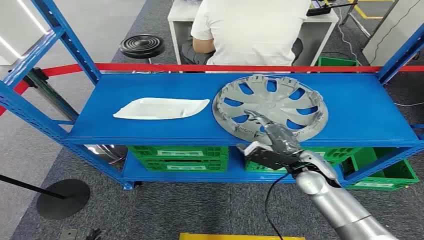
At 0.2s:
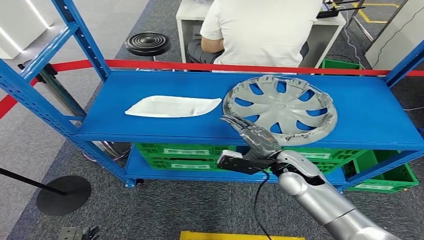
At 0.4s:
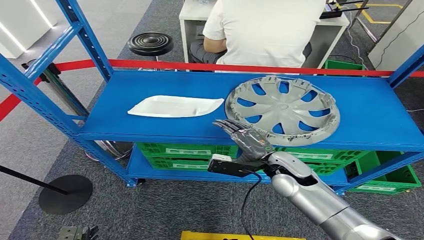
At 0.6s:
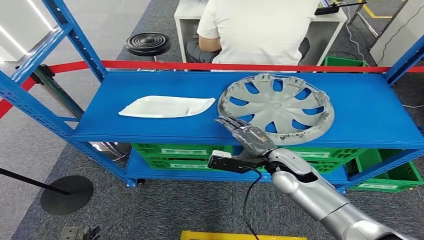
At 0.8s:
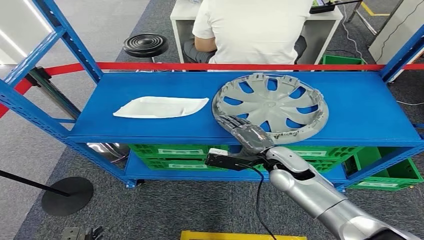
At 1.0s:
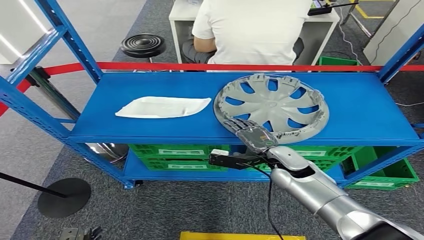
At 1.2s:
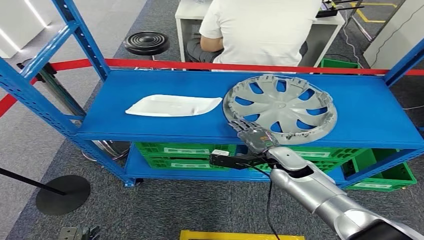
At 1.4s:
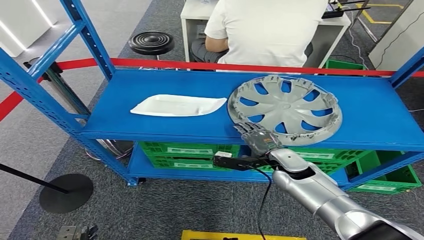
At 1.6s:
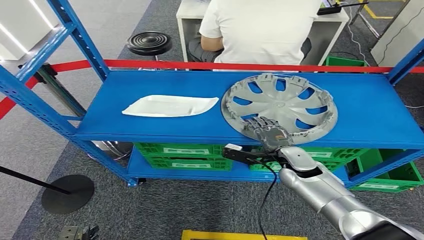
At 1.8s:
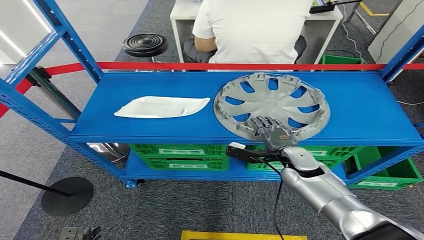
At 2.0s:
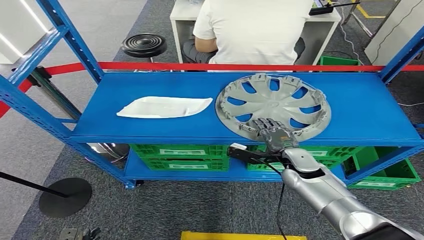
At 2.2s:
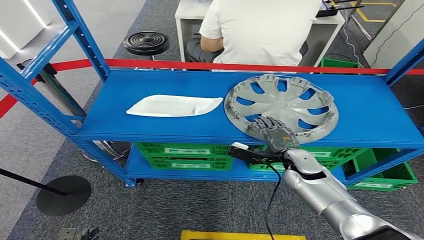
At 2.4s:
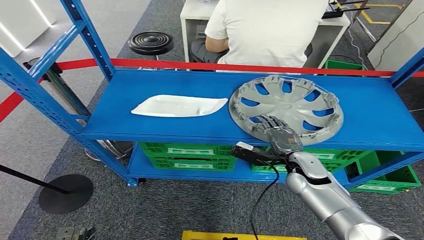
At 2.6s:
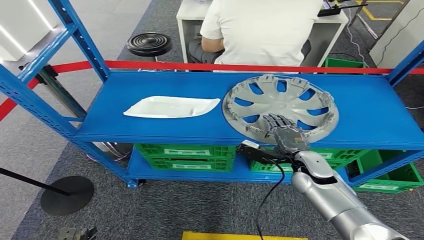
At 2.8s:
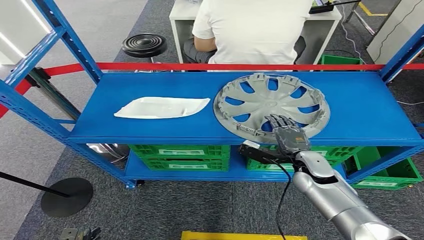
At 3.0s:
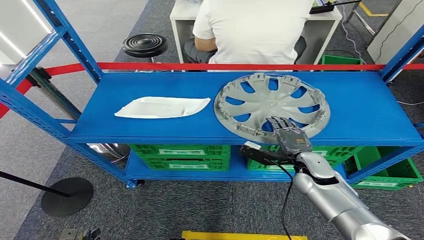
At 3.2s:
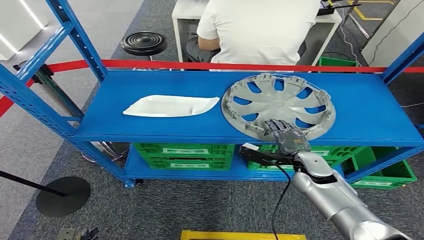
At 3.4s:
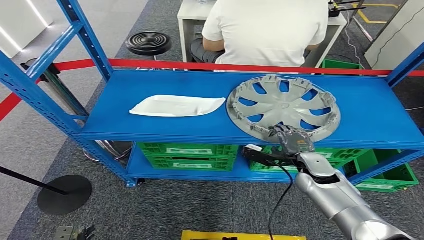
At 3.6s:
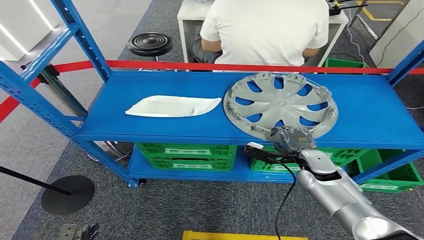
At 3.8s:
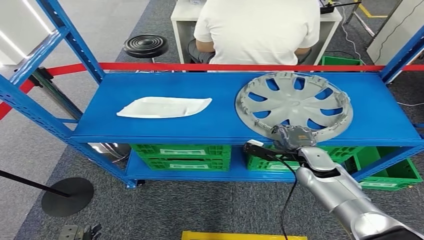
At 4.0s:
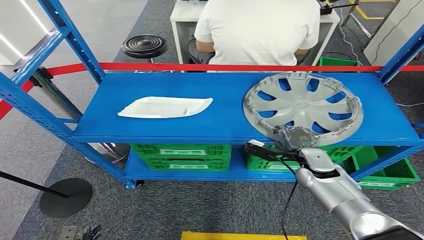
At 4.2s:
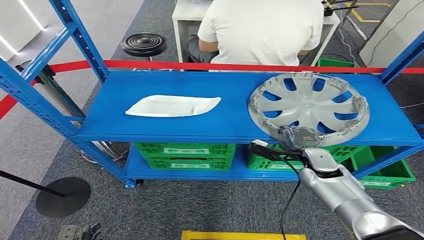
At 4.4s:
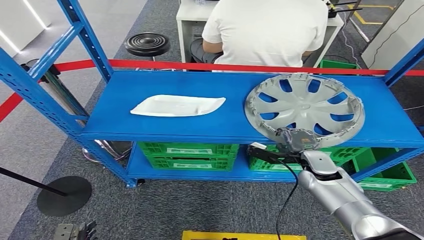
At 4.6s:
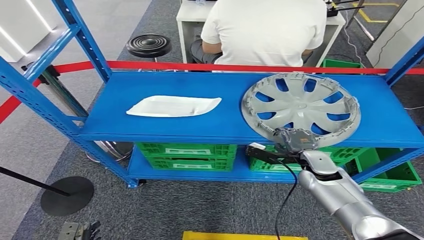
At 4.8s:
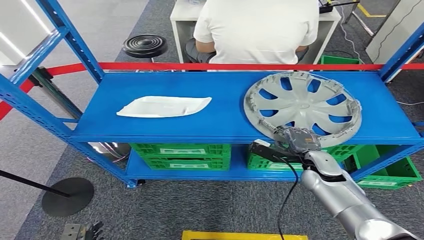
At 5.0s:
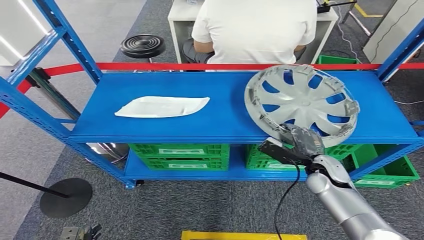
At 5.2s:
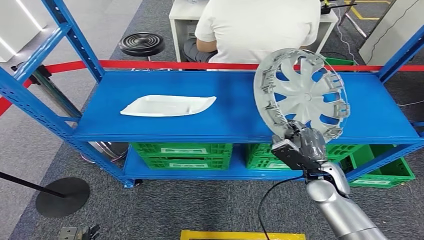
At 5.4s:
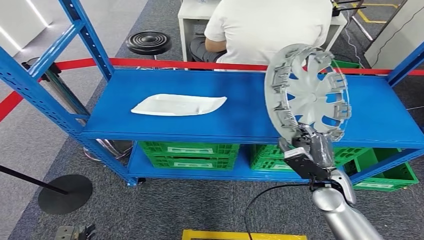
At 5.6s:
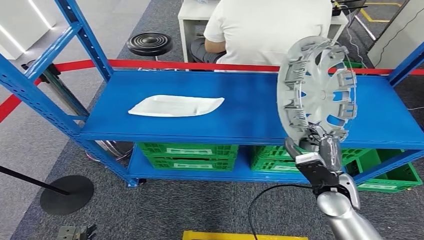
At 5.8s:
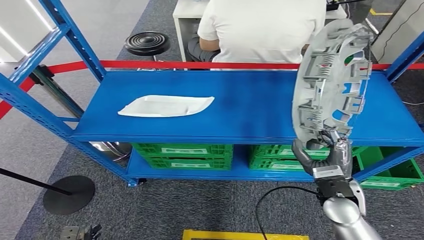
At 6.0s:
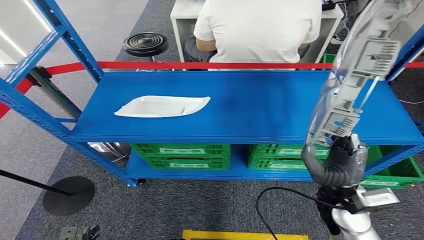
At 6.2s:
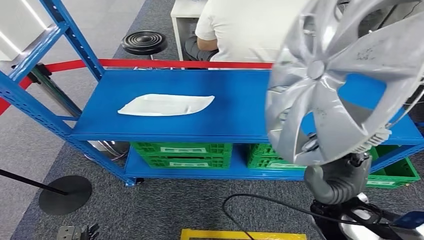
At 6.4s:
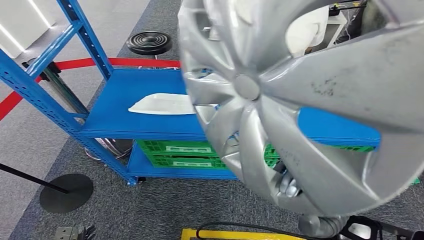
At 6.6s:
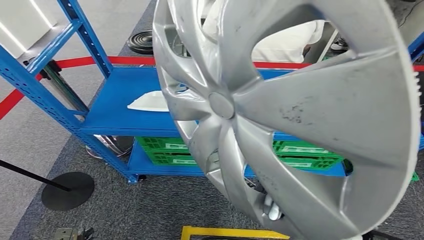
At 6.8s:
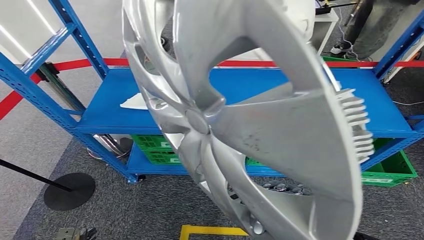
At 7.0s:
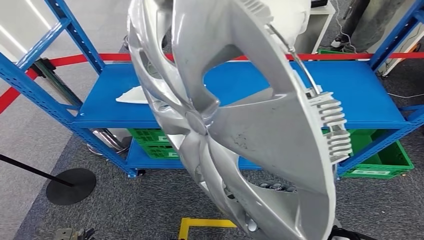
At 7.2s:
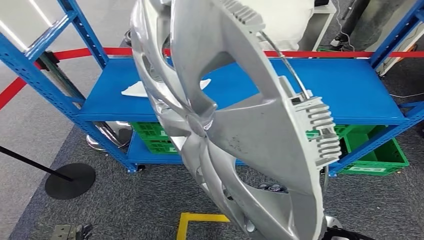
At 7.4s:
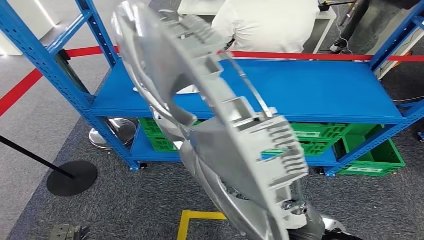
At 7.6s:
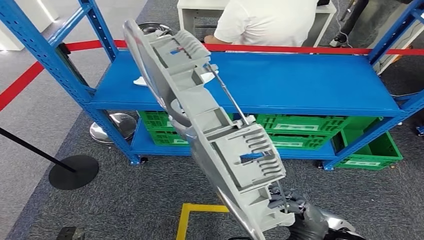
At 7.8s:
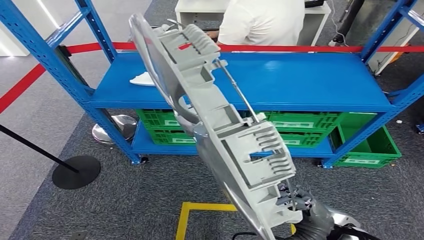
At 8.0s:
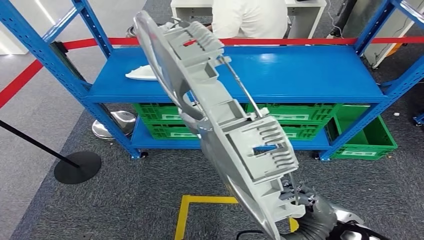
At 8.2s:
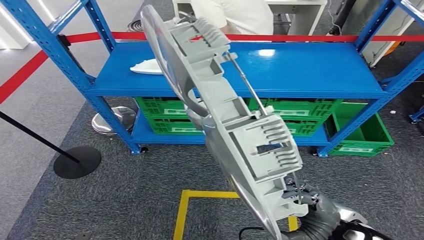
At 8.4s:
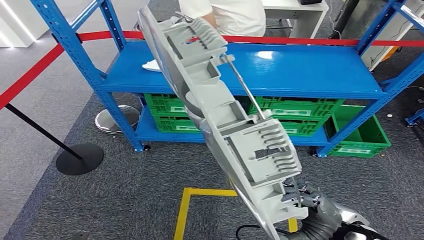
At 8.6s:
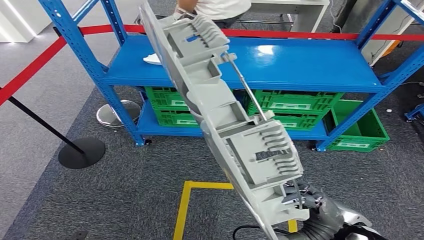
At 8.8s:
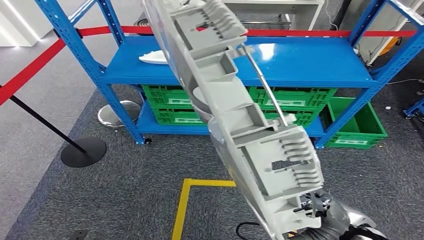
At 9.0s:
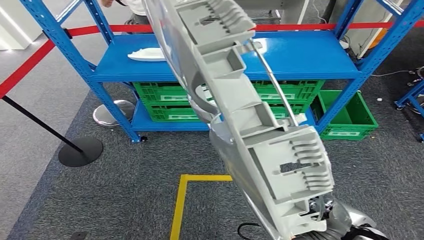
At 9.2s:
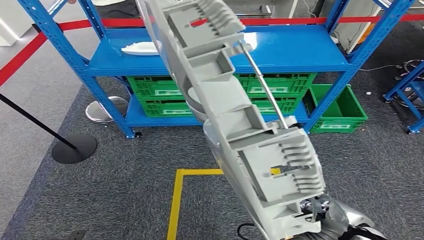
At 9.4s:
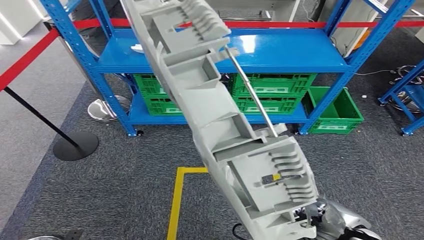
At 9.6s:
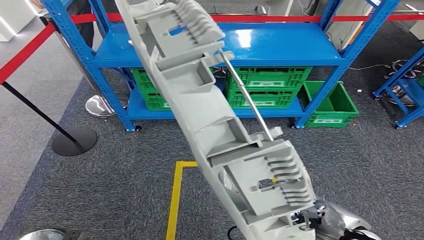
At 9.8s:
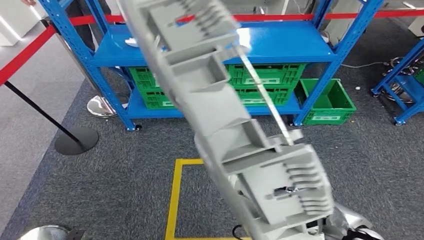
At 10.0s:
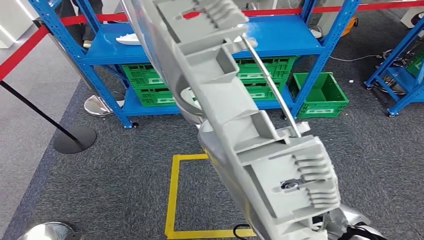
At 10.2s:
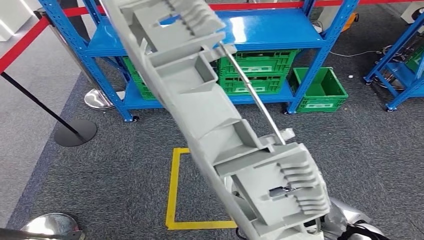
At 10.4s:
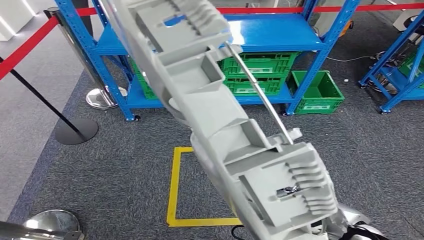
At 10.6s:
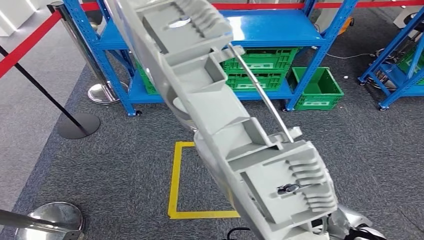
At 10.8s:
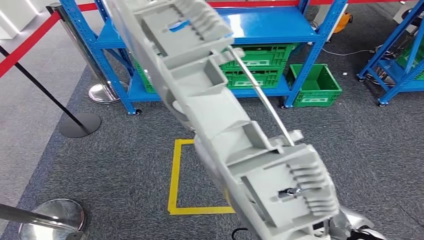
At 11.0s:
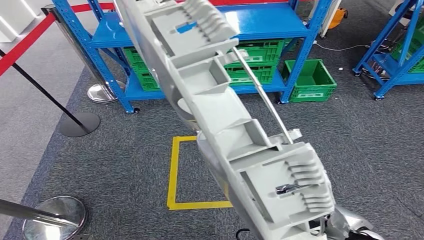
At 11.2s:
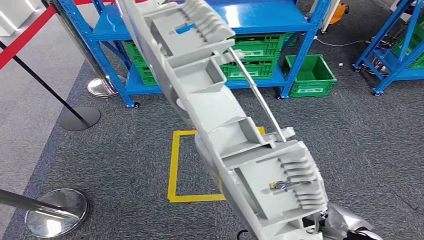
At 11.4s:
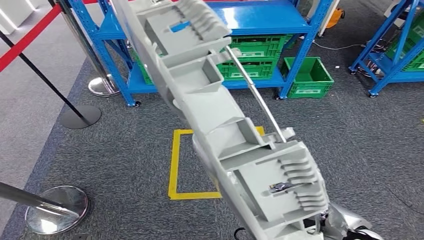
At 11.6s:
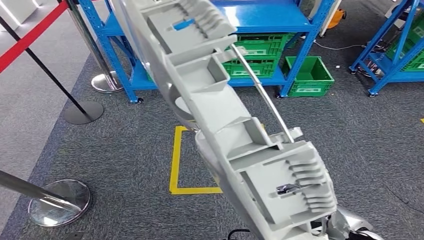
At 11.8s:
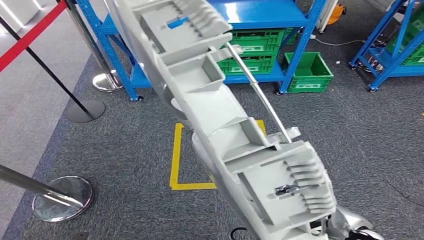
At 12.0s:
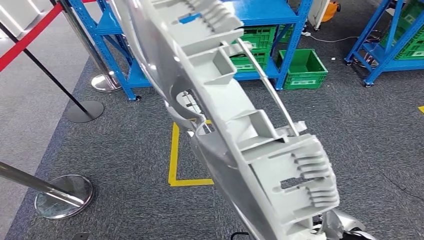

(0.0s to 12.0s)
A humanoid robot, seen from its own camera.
Step, 0.0s - 6.0s: Take small components from the rack.

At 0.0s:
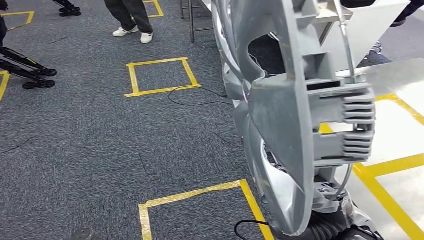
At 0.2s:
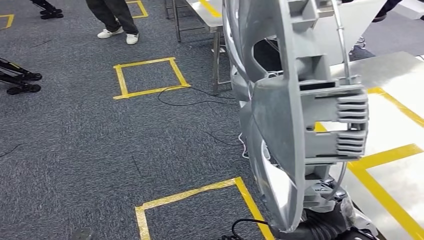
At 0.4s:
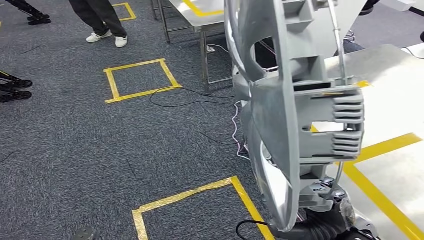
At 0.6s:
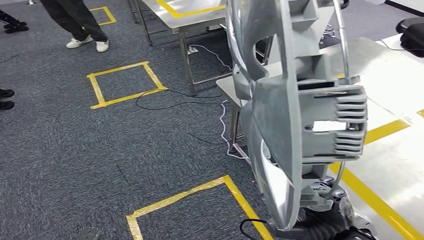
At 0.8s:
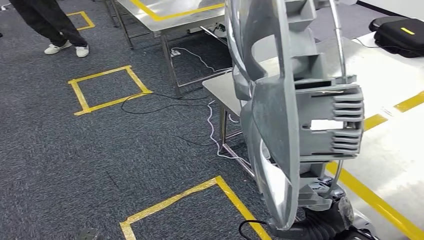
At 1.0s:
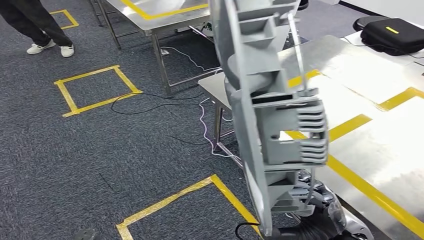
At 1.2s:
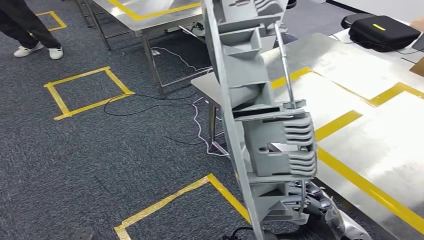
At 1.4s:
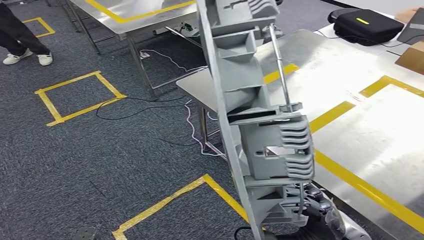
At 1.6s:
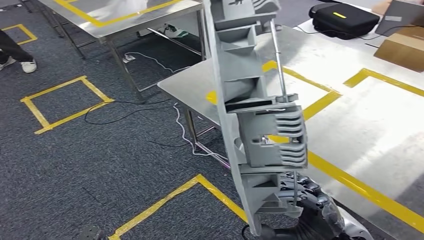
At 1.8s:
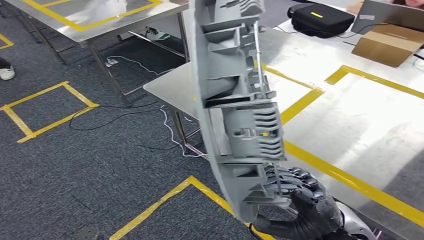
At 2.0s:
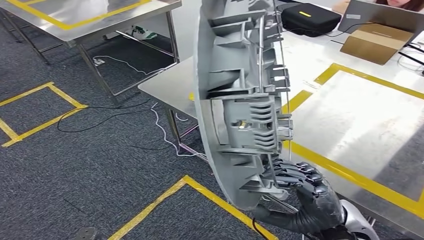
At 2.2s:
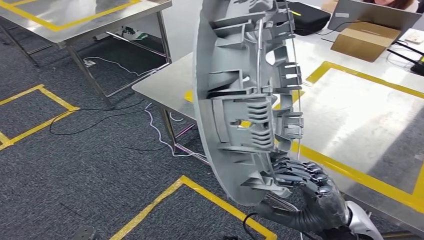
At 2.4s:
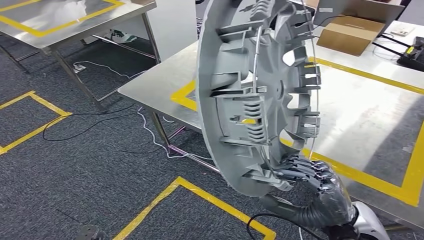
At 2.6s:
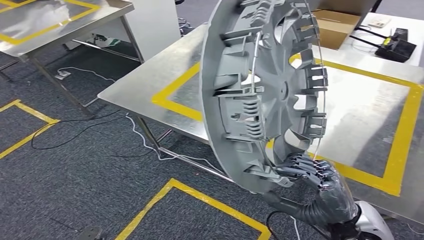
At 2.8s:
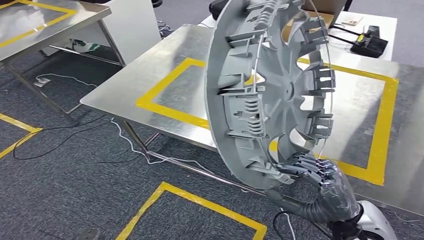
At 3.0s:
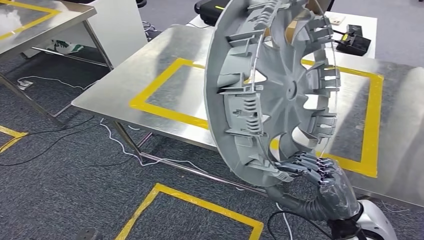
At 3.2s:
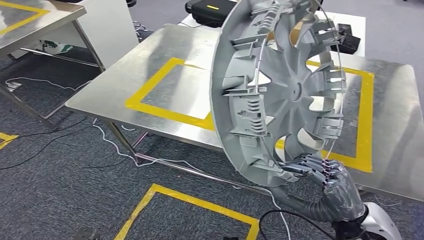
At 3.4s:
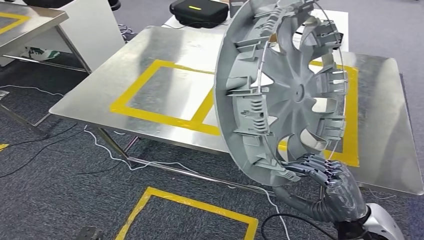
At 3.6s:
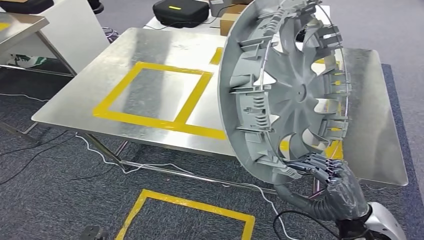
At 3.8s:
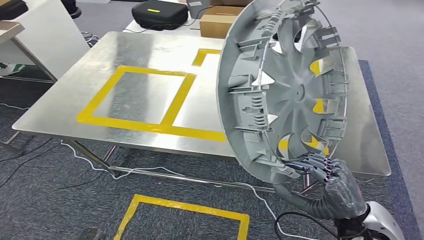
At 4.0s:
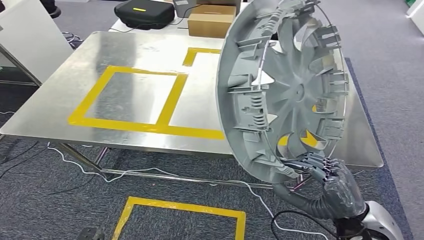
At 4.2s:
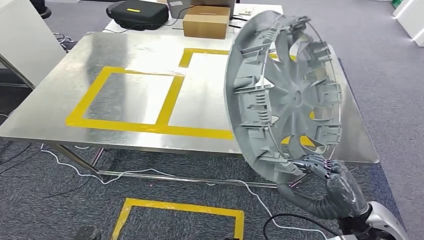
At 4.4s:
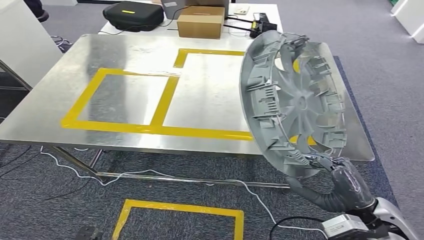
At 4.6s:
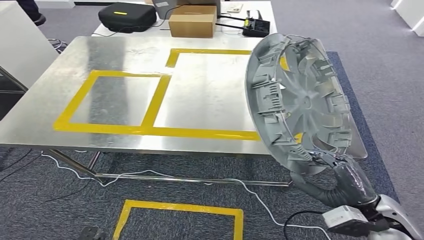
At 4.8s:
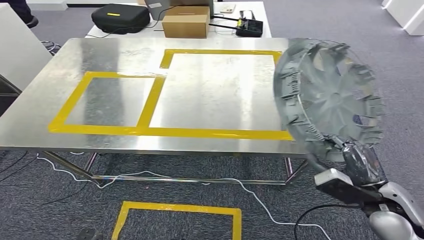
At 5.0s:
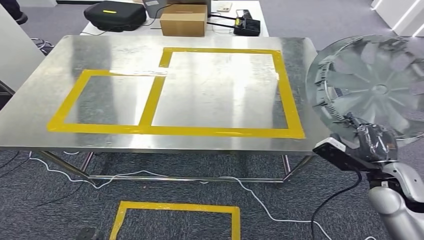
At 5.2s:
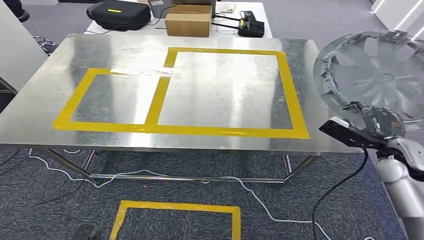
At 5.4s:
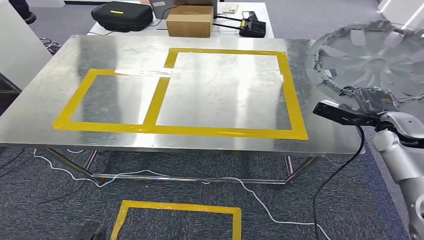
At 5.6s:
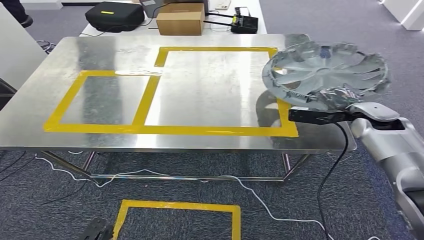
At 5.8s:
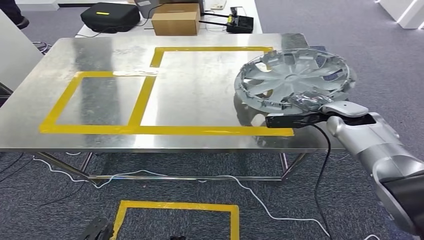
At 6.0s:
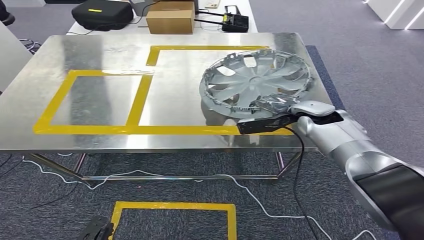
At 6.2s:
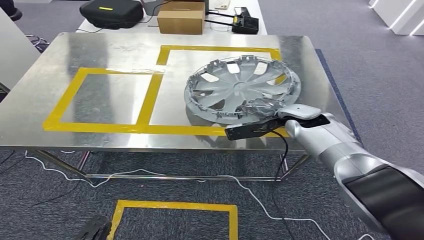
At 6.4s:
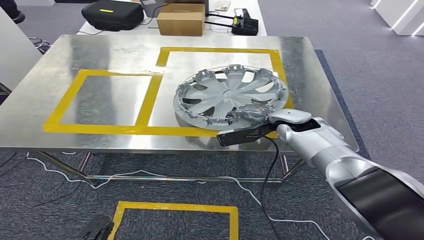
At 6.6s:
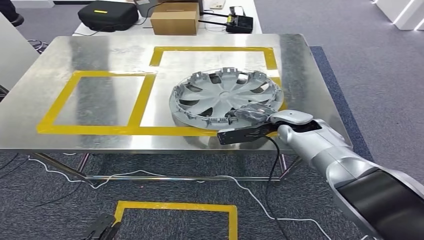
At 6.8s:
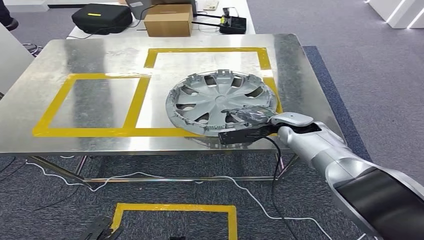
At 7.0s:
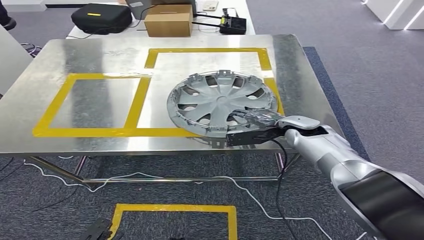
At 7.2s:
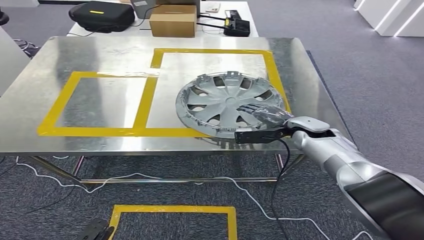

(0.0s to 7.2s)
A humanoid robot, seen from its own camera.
Step, 0.0s - 3.4s: Move the small parts to the workbench.
